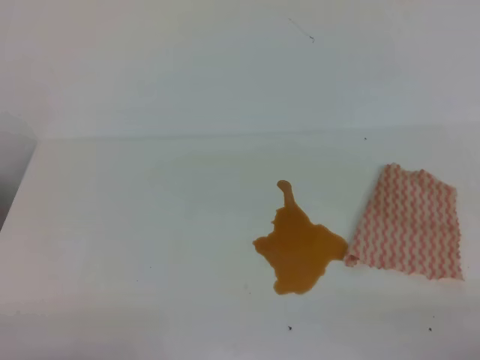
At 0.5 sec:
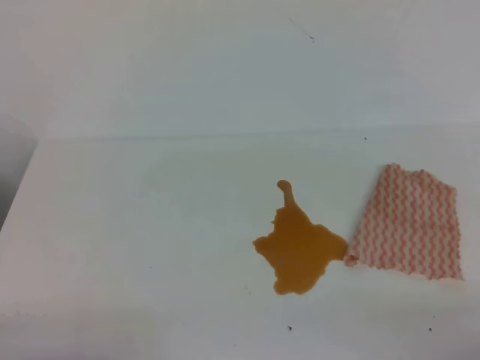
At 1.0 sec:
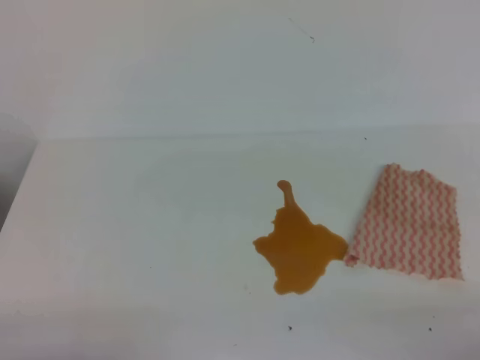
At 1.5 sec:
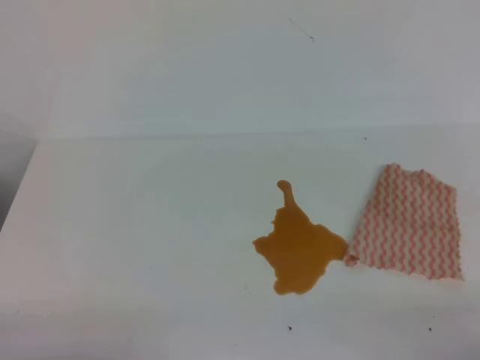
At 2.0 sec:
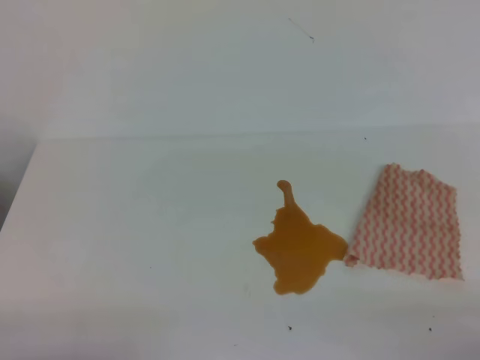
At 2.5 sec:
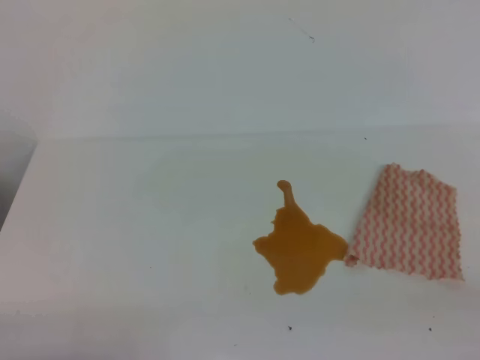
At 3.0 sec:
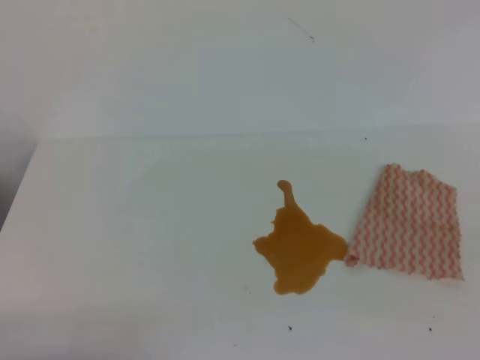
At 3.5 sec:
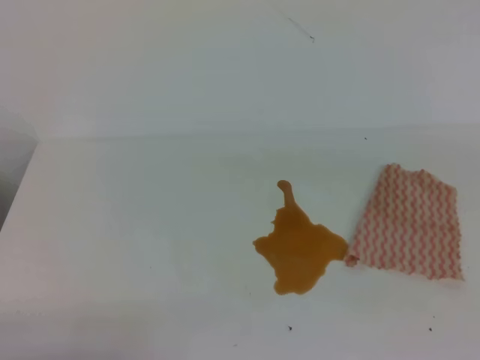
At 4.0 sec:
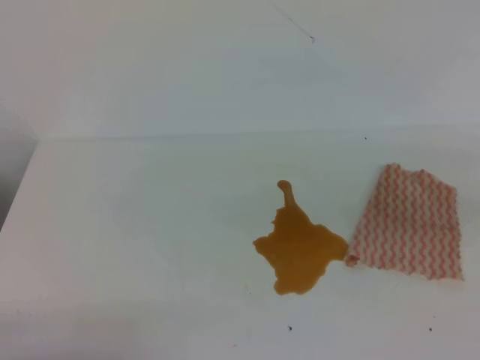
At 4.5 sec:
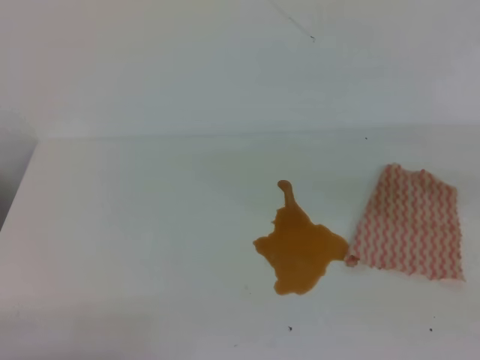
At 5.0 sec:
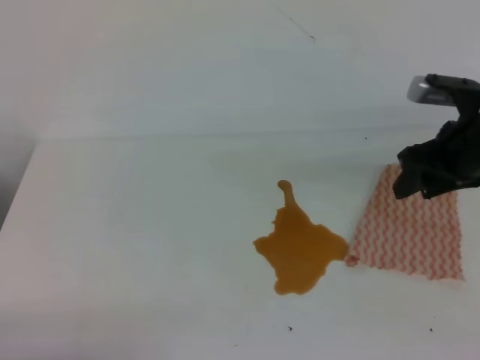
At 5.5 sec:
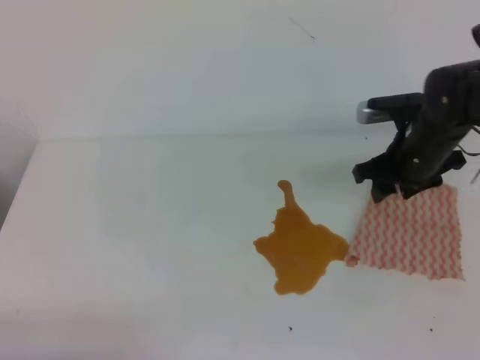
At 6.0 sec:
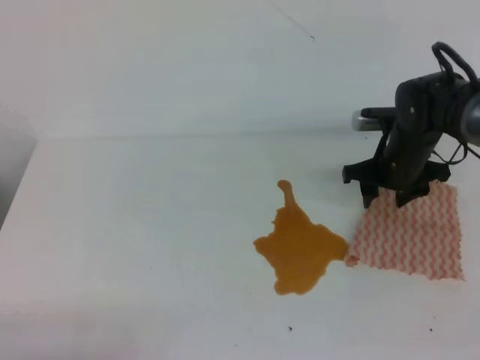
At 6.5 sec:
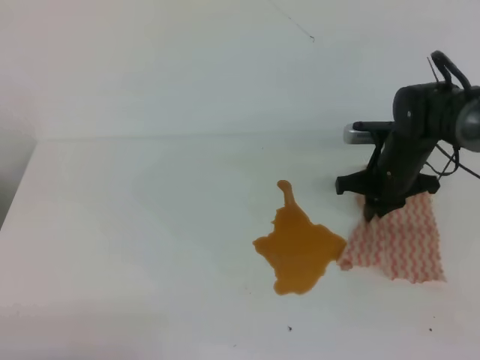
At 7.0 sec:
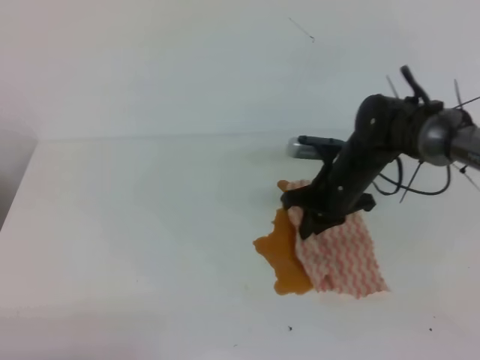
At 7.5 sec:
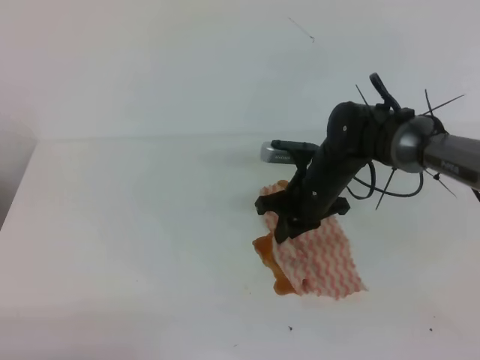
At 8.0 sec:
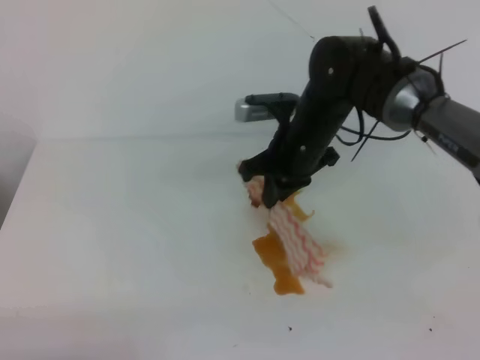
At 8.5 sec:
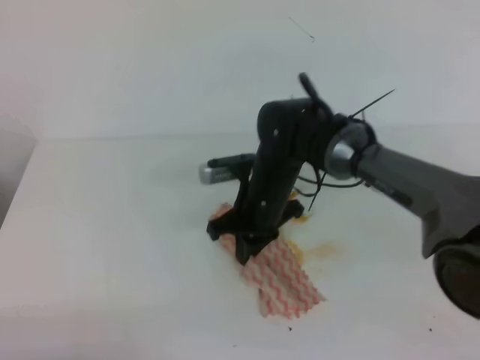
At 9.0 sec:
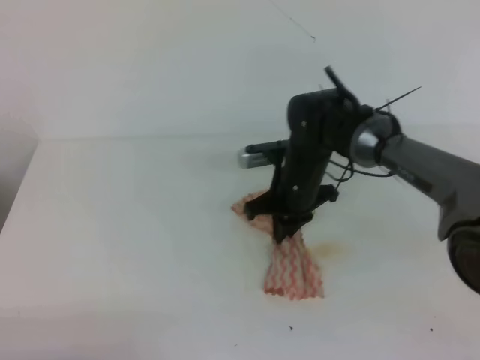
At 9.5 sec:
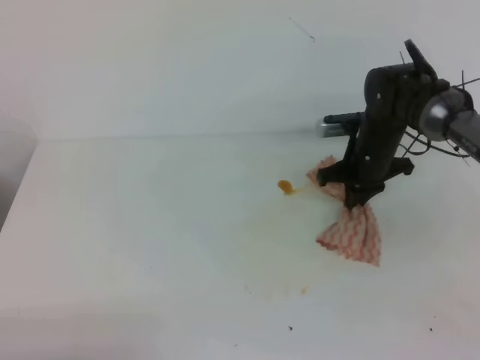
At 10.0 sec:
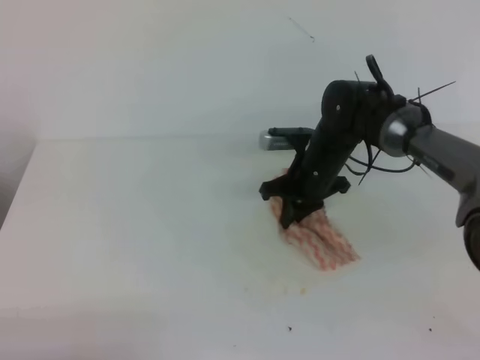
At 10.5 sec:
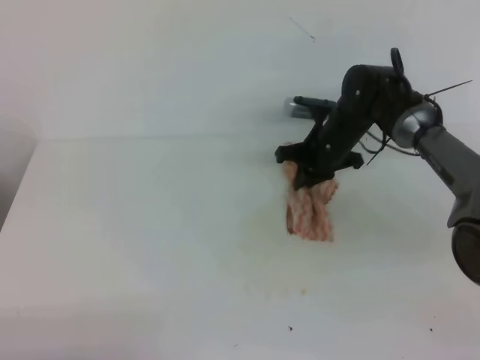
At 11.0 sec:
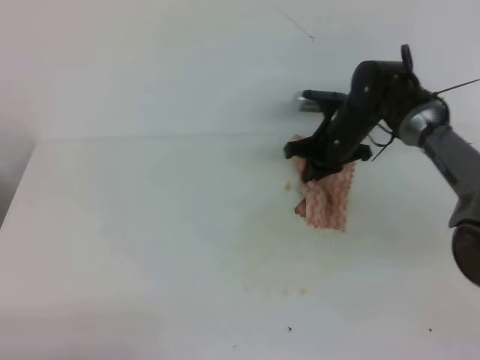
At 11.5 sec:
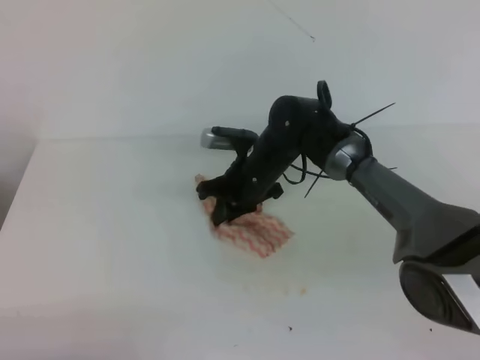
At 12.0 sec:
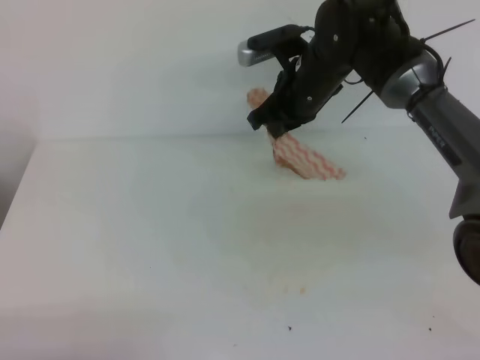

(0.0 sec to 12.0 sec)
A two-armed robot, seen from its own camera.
0.0 sec - 2.0 sec: The two grippers keep their place.
4.0 sec - 6.0 sec: The right gripper moves forward, downward and to the left, about 35 cm, and opens up.
6.0 sec - 8.0 sec: The right gripper goes approximately 15 cm to the left and upward, and closes.
8.0 sec - 10.0 sec: The right gripper swings left and right, roughly 15 cm each way, with 2 reversals.
10.0 sec - 12.0 sec: The right gripper travels upward by approximately 10 cm.

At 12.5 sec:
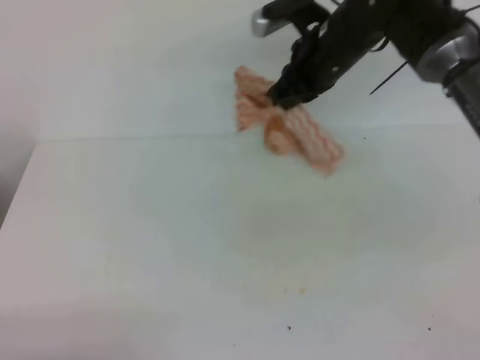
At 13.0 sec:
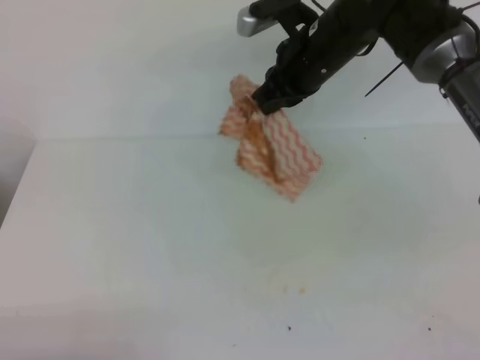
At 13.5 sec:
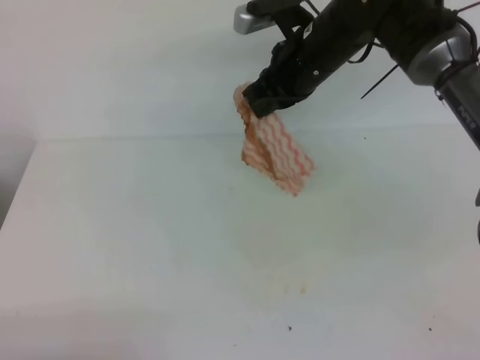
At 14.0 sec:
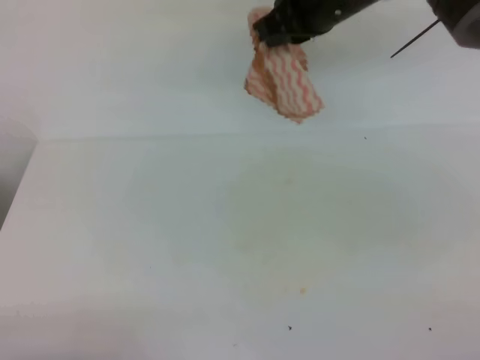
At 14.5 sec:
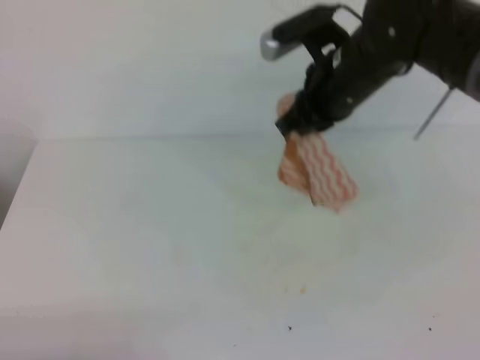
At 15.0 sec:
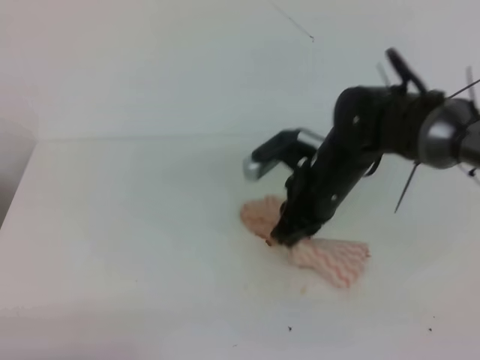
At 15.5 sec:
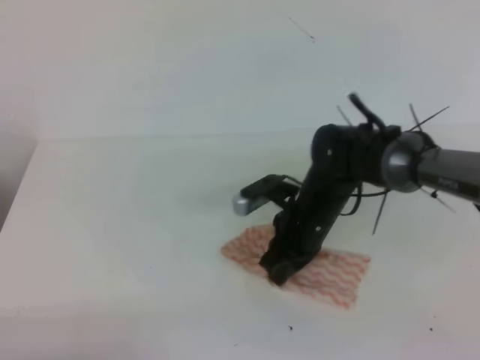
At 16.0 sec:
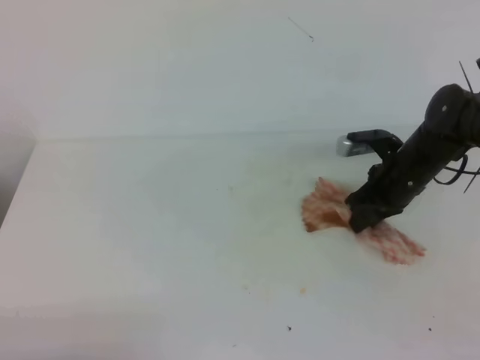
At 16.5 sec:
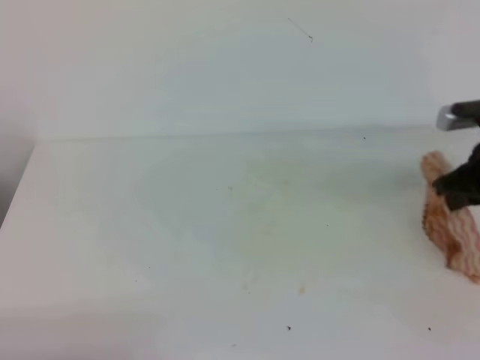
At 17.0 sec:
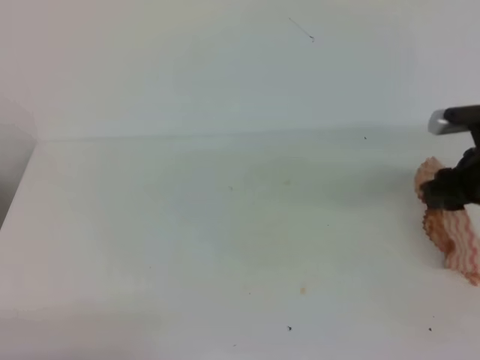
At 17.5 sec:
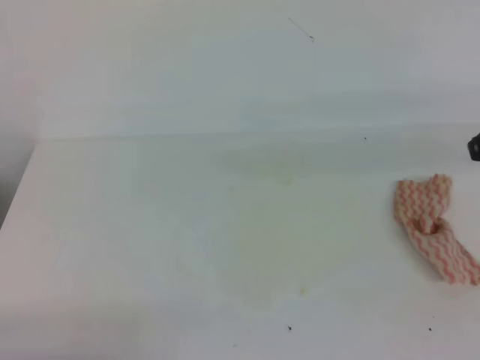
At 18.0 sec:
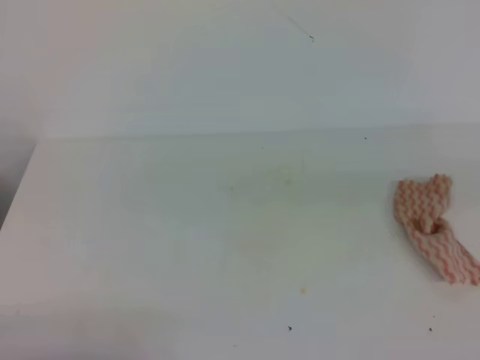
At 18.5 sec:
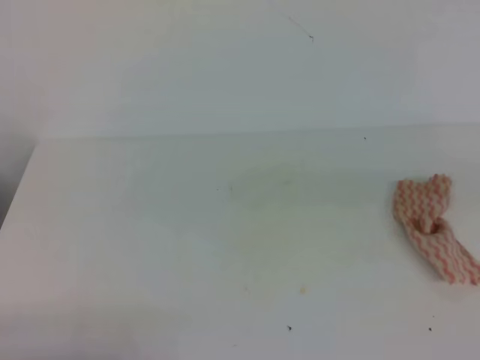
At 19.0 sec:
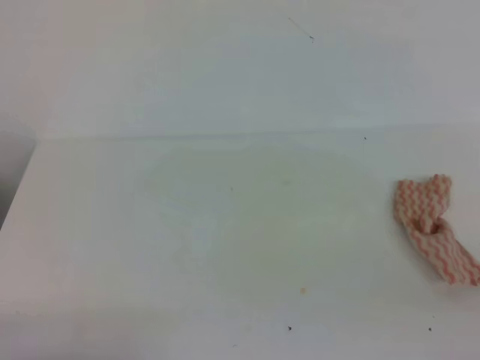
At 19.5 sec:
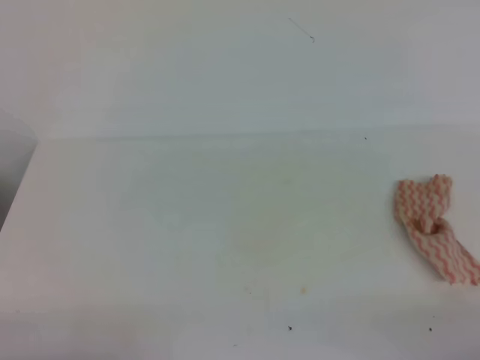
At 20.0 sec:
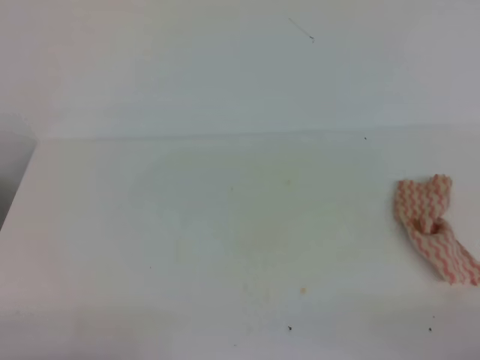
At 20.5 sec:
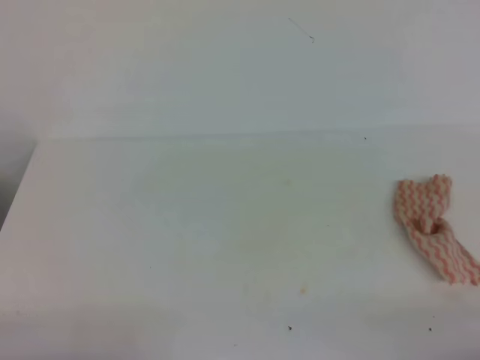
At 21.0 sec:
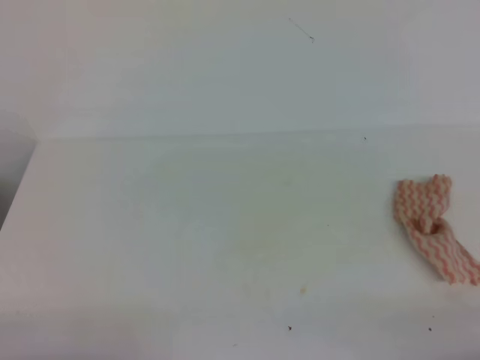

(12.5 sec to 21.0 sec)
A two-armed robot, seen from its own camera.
12.5 sec - 14.5 sec: The right gripper is displaced backward by roughly 5 cm.
14.5 sec - 16.5 sec: The right gripper heads to the right and downward, covering roughly 20 cm.
16.5 sec - 19.0 sec: The right gripper is displaced backward by approximately 35 cm, and opens, then closes once more.

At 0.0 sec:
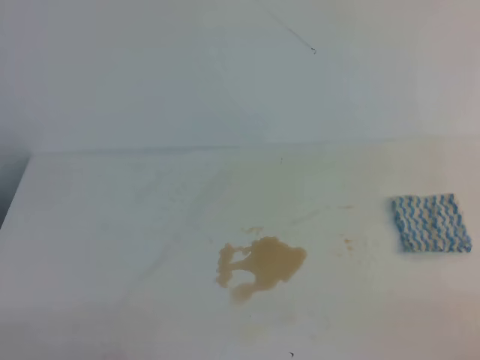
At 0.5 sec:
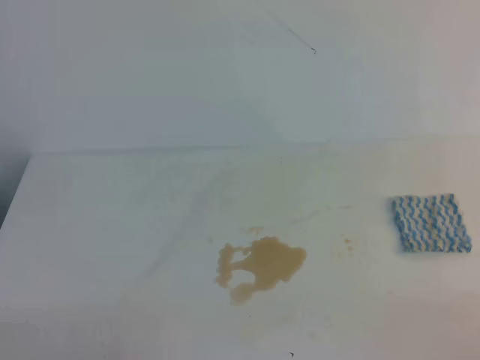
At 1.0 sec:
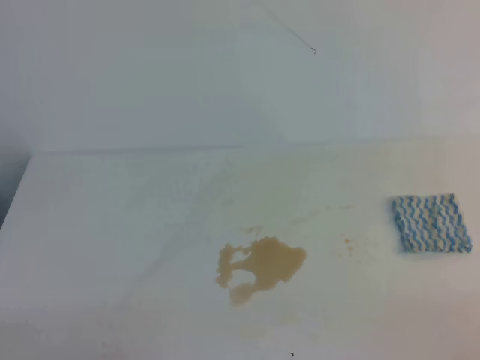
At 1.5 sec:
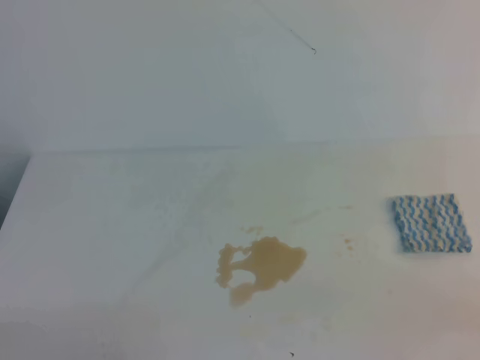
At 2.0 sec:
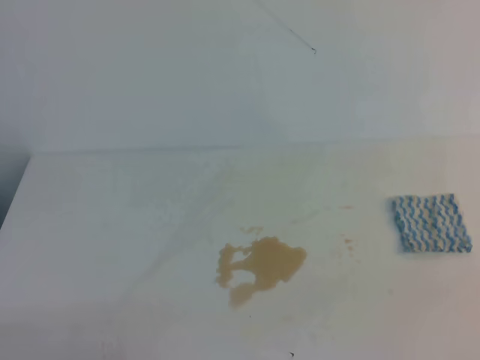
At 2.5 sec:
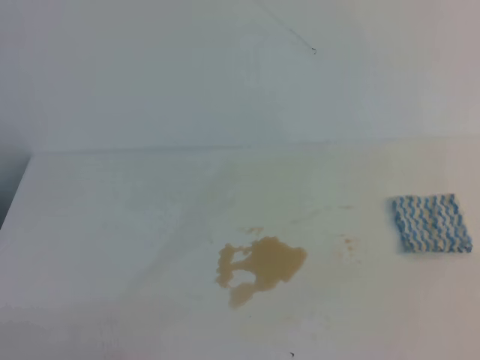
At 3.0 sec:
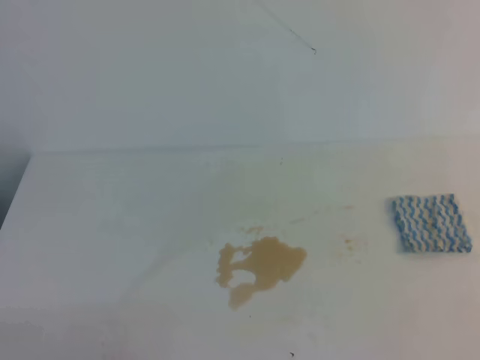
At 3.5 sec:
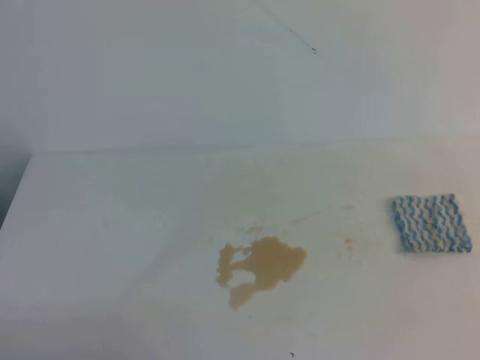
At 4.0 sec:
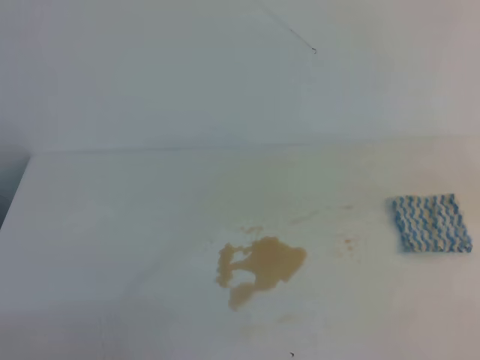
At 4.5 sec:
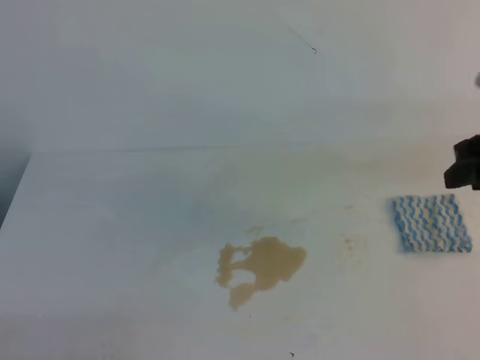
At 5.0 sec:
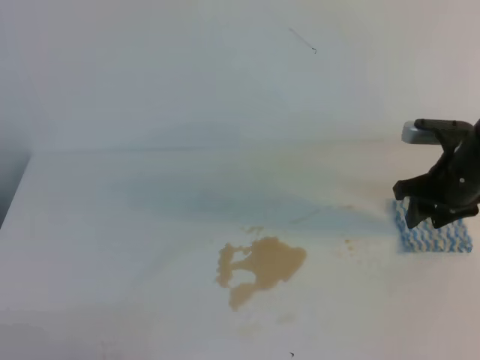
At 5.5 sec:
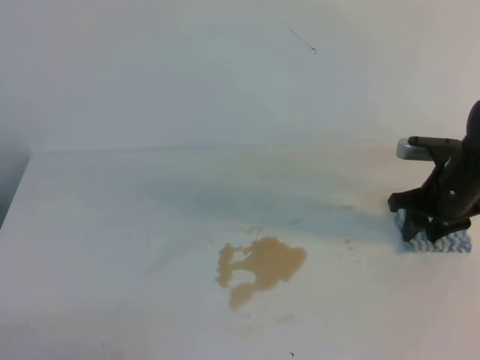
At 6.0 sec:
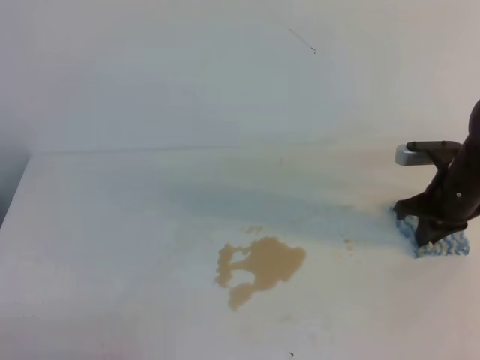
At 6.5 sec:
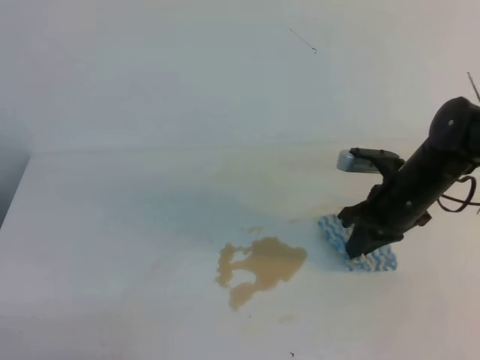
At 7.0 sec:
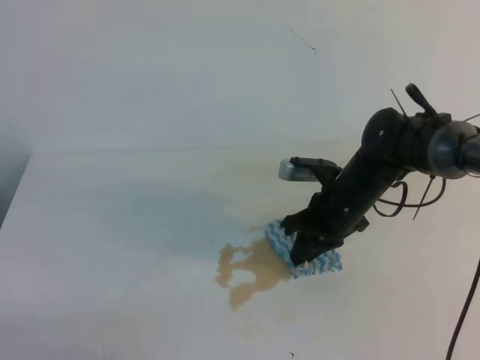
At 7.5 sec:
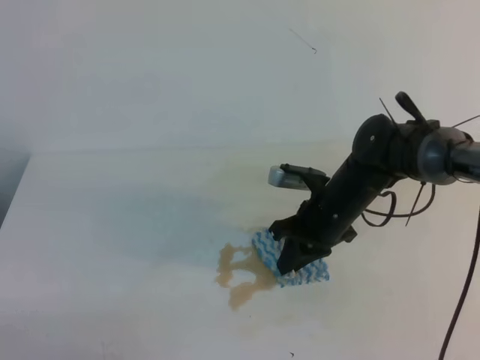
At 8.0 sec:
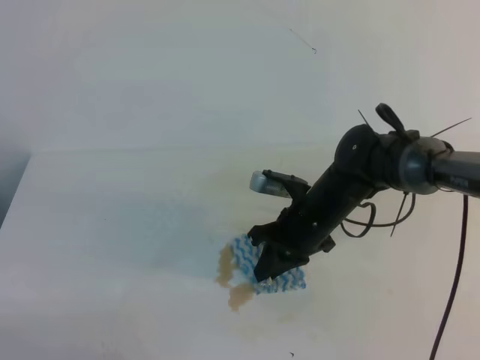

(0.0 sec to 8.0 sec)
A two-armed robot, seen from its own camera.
4.0 sec - 6.0 sec: The right gripper travels forward and downward by about 25 cm, and opens and closes again.
6.0 sec - 8.0 sec: The right gripper moves to the left, roughly 20 cm.
